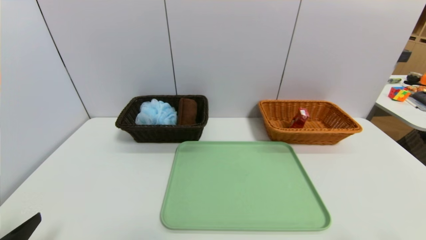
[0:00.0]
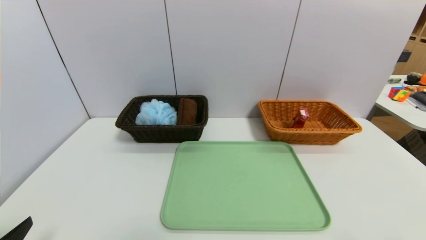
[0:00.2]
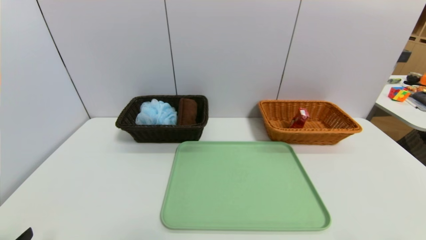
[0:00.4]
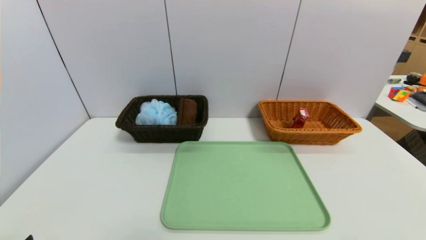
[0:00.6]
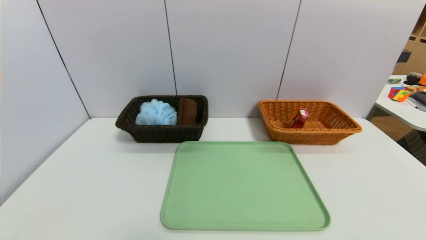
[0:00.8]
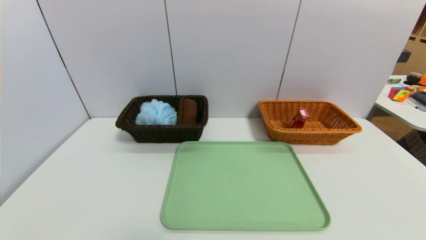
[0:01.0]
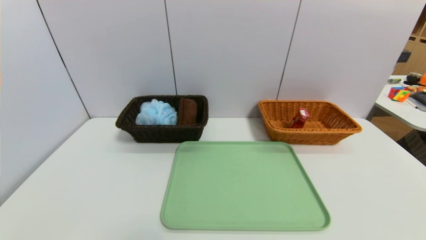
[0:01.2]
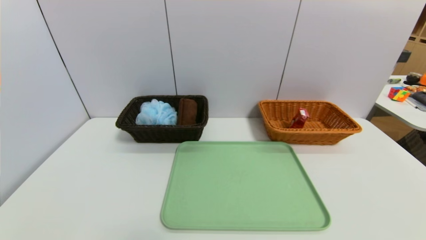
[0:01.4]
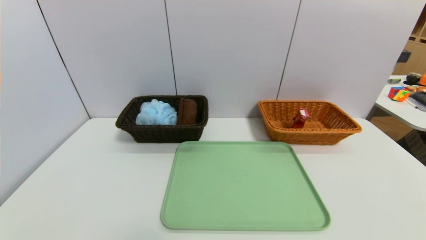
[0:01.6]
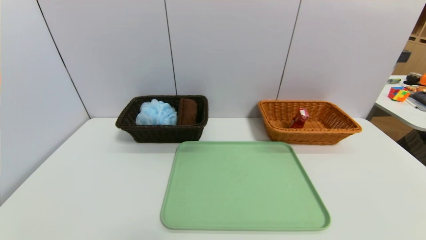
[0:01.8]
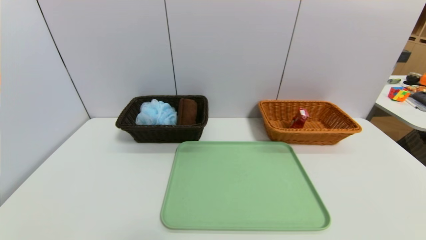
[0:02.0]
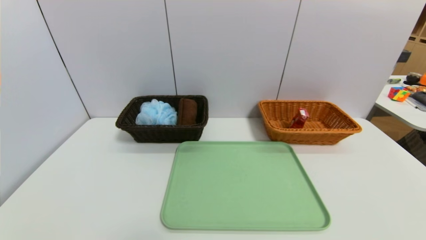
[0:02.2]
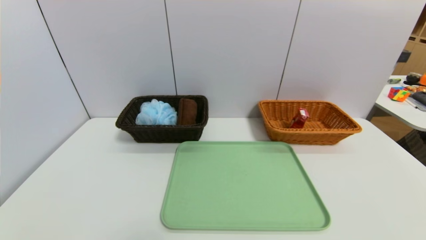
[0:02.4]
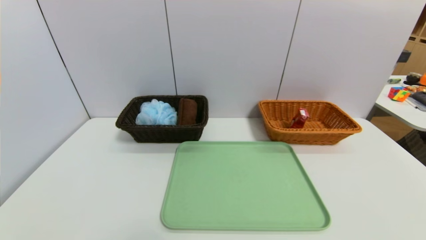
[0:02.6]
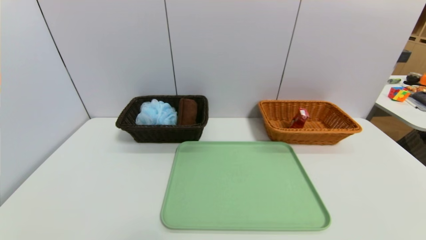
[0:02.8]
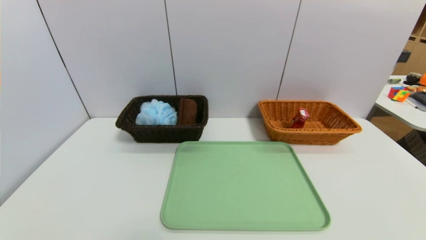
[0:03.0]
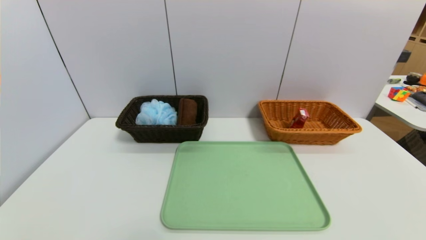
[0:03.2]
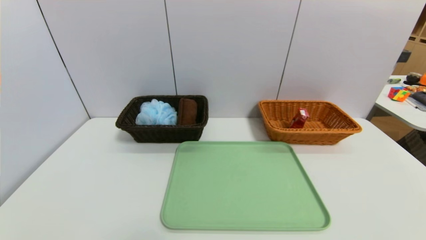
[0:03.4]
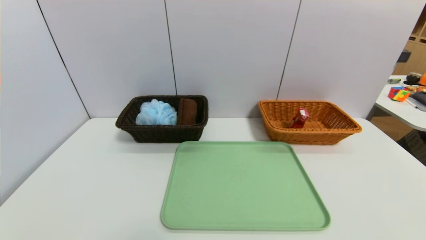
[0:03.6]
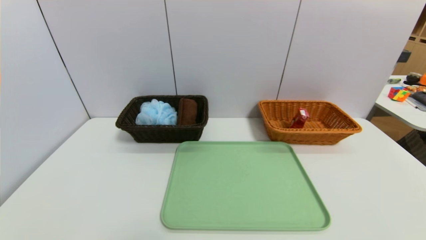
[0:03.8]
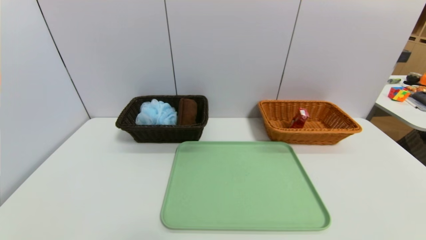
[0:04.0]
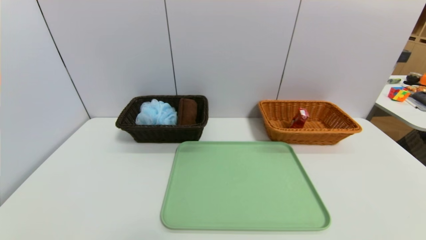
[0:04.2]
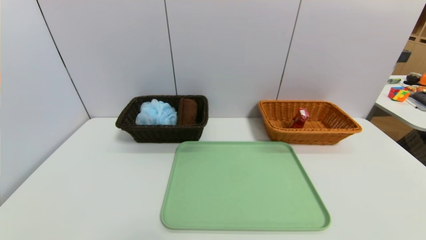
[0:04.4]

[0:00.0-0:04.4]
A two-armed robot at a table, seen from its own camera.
Task of the whole recording: place the food in the right basket with the right gripper, and place the non food items in the left basket with the left gripper.
0:00.0 to 0:01.4: The left gripper heads downward, covering some 10 cm.
0:03.0 to 0:04.4: Neither gripper changes place.

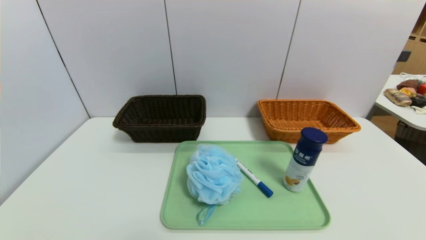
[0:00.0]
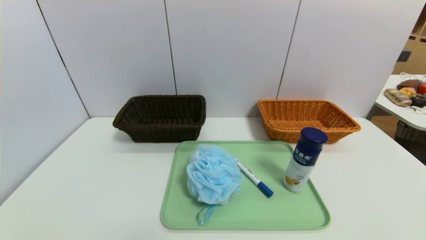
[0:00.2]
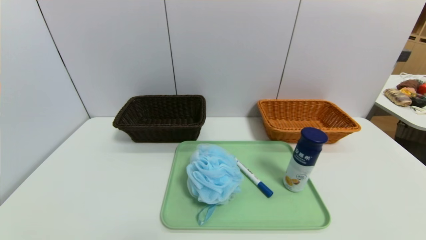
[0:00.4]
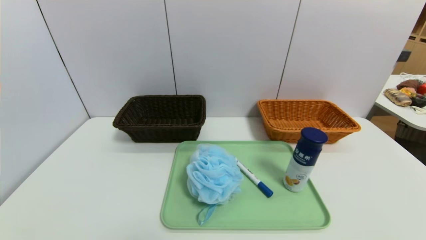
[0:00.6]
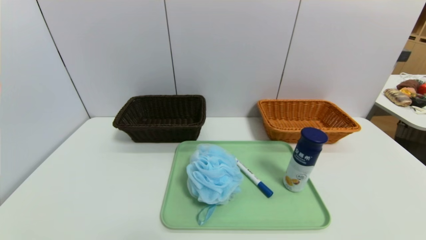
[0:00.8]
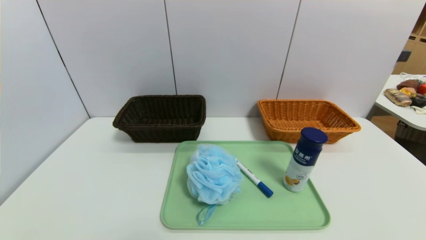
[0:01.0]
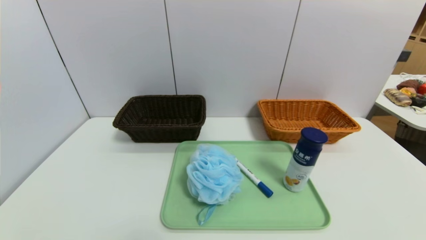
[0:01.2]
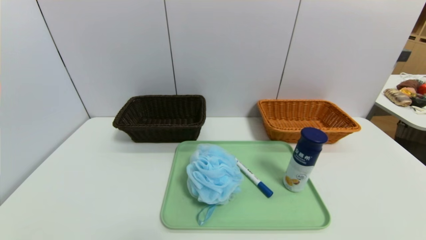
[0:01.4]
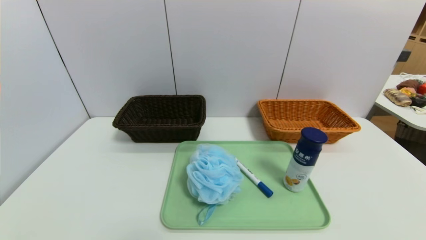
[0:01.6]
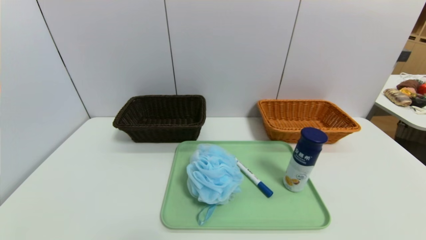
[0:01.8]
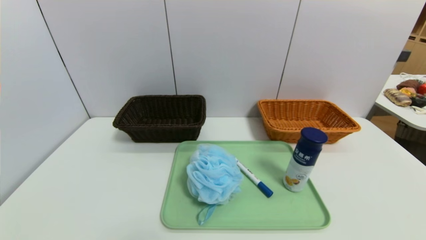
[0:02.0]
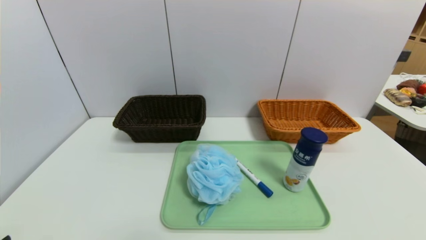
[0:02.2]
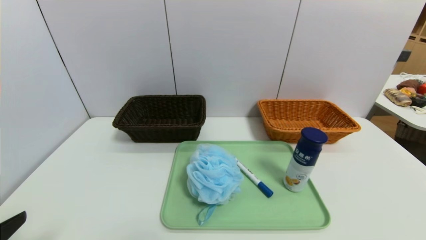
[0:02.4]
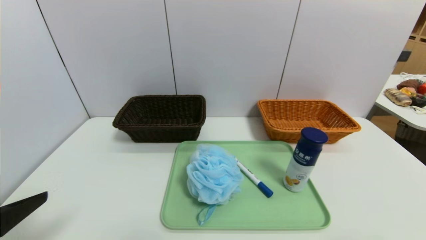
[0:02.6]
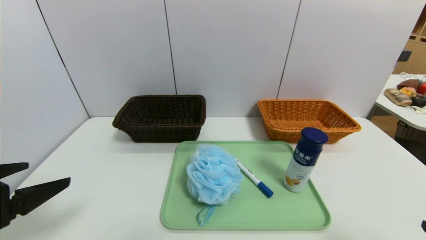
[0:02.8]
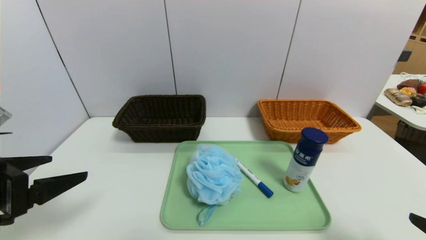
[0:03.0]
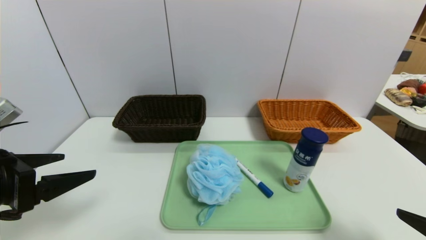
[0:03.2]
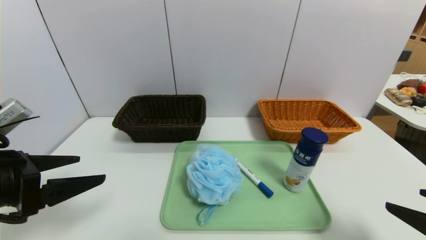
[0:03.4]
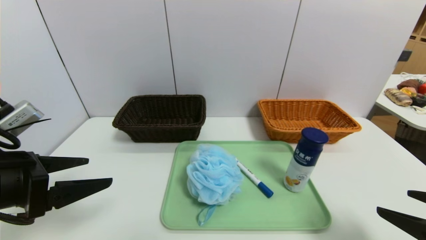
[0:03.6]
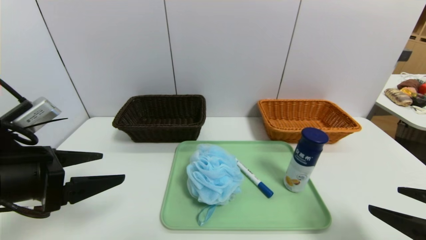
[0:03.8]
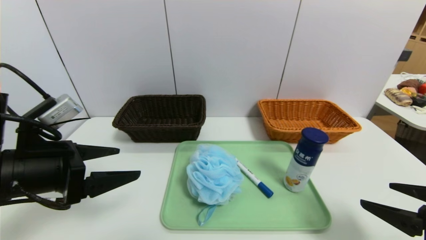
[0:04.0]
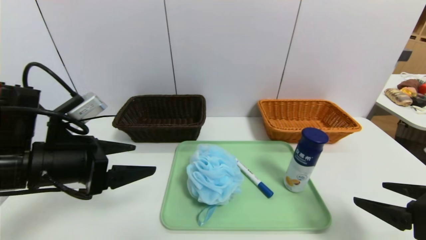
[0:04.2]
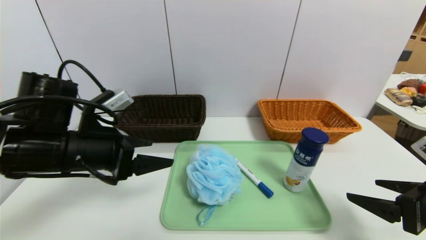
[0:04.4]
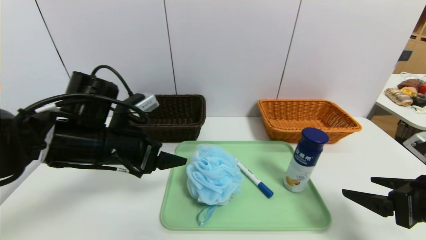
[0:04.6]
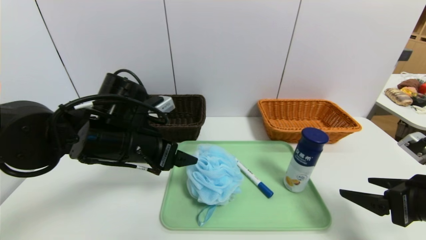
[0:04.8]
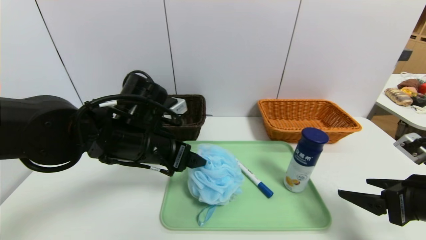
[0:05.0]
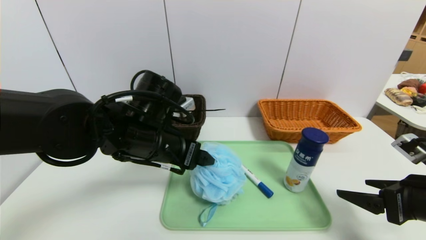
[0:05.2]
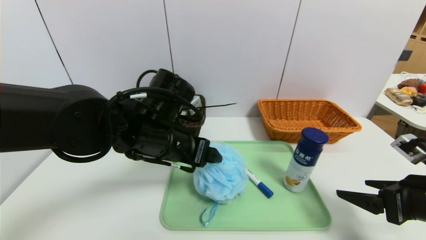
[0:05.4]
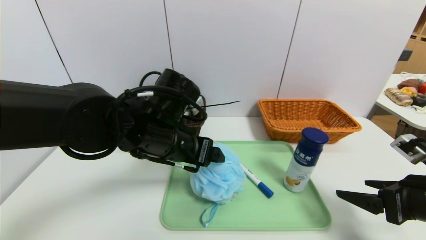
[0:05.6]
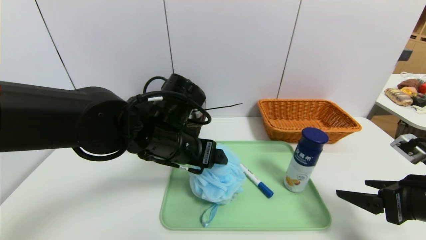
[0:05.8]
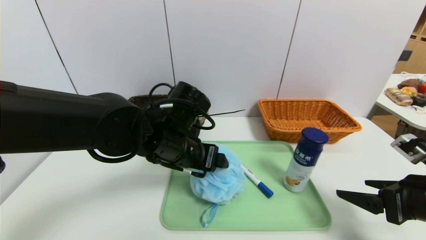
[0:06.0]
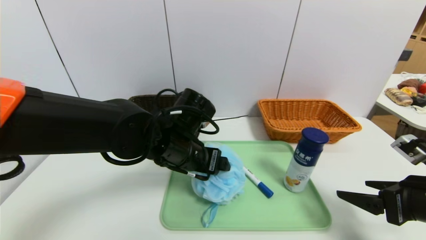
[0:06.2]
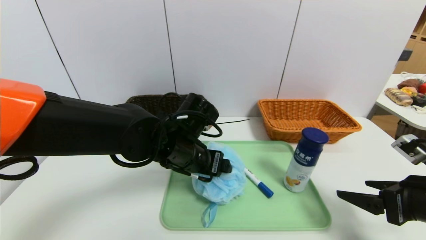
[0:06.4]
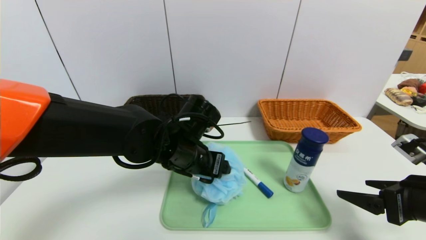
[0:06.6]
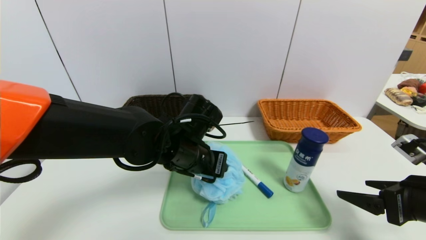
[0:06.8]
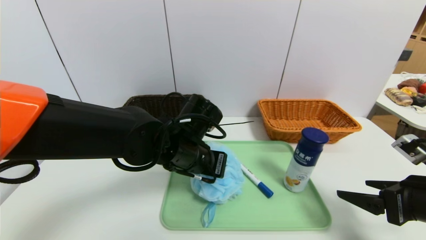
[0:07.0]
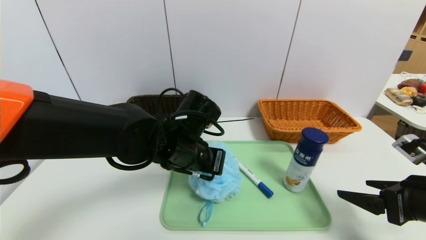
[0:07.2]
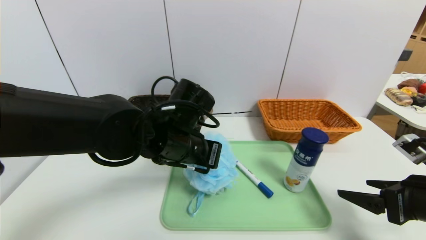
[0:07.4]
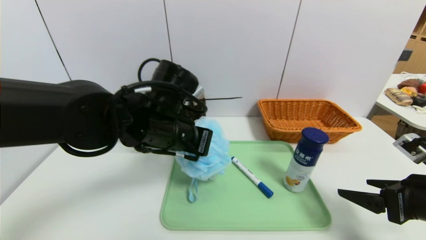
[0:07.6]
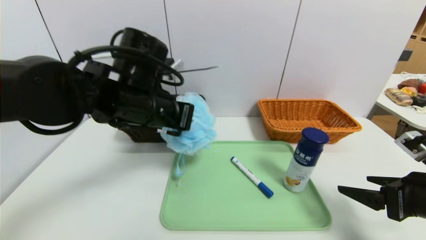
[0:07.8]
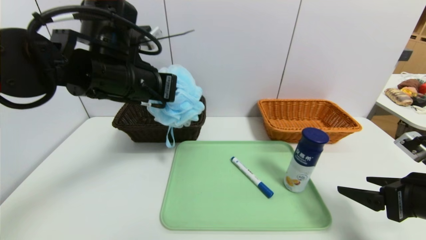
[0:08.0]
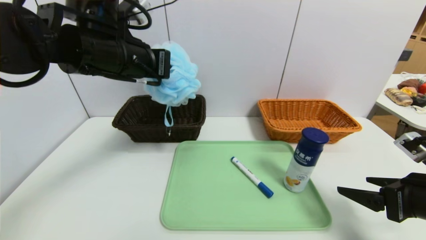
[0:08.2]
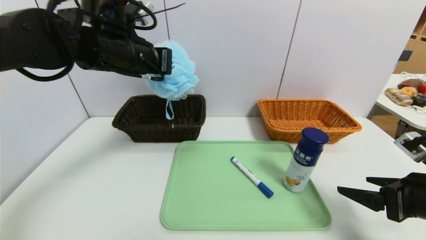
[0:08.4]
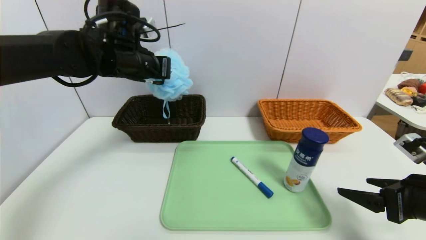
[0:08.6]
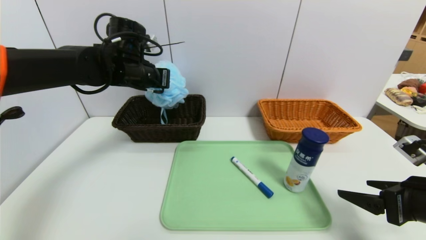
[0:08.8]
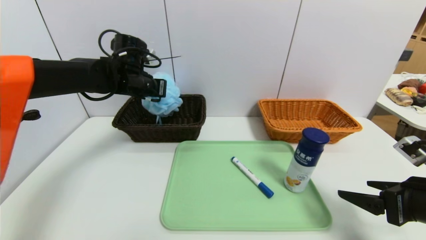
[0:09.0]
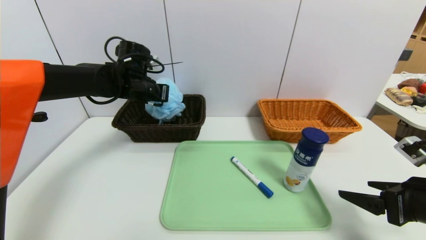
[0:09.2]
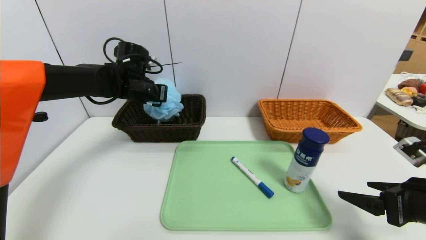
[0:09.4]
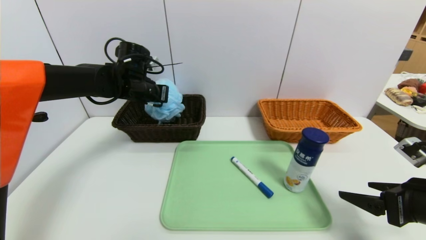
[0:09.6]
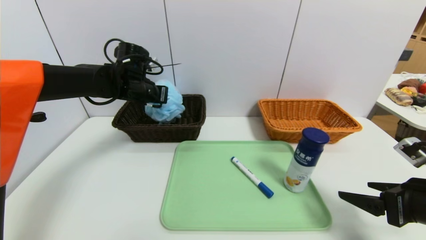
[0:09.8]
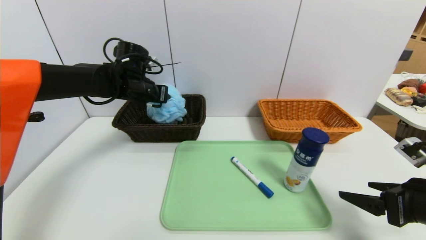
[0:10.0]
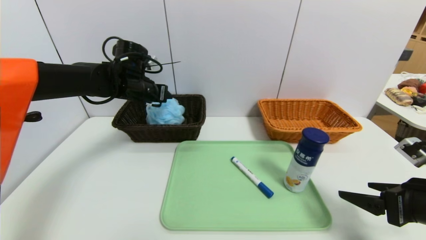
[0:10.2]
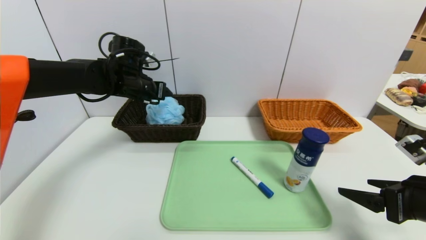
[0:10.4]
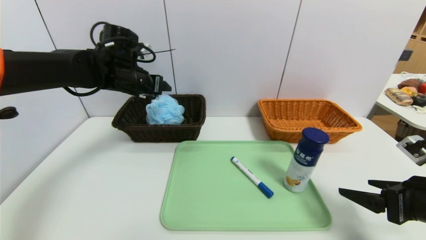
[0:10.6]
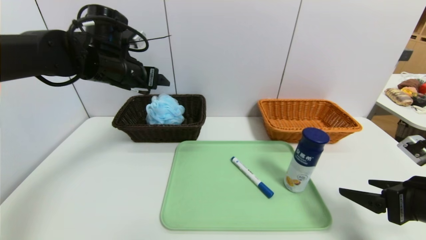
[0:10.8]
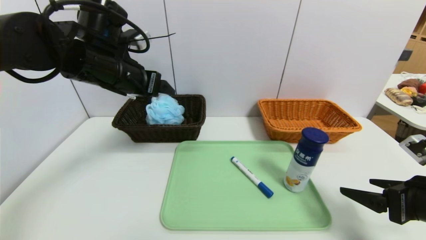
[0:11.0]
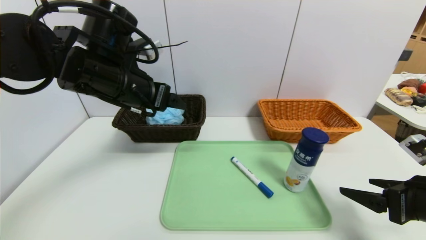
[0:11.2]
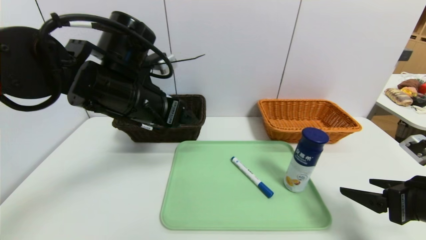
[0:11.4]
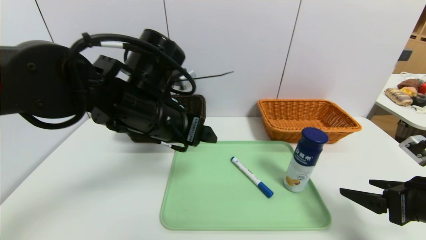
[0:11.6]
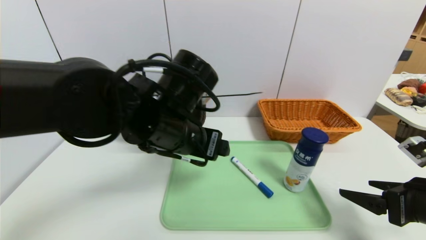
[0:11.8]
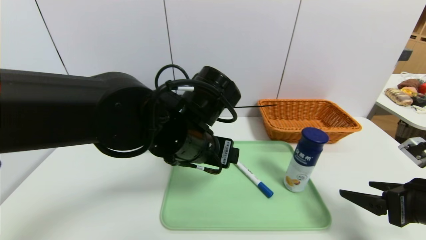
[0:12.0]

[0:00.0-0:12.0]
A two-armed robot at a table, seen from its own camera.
Task of the whole recording: place the food in the right basket with the right gripper, and place the non food items in the left basket with the left gripper.
Step, 0:00.0 to 0:10.4: Grasp the shower sphere and put it in the left basket.
0:01.6 to 0:03.0: The right gripper is displaced upward and forward by approximately 10 cm; the left gripper shifts approximately 20 cm forward and upward.
0:03.0 to 0:04.4: The right gripper moves forward, some 10 cm. The left gripper shifts about 15 cm forward and to the right.
0:04.4 to 0:06.0: The left gripper is displaced to the right by some 15 cm.
0:06.0 to 0:07.6: The left gripper closes its fingers.
0:07.6 to 0:09.0: The left gripper goes approximately 20 cm forward and to the left.
0:09.0 to 0:10.4: The left gripper opens up.
0:10.4 to 0:12.0: The left gripper moves backward and to the right, some 25 cm.
